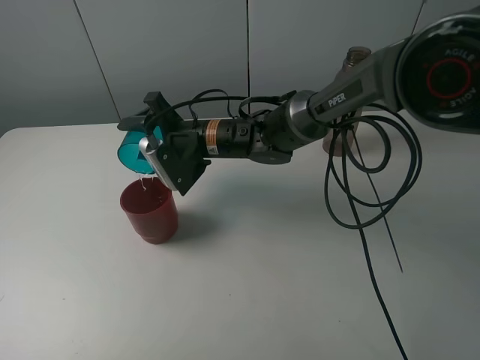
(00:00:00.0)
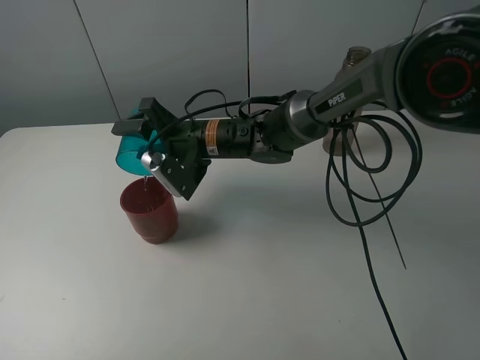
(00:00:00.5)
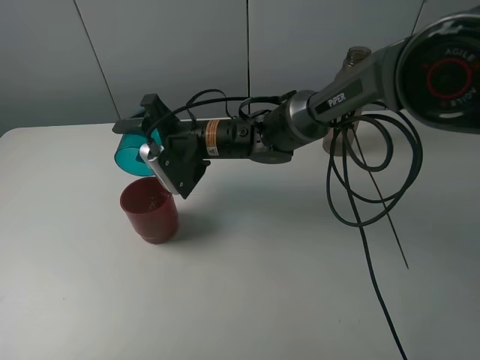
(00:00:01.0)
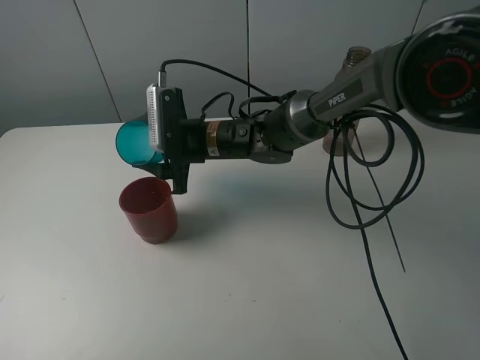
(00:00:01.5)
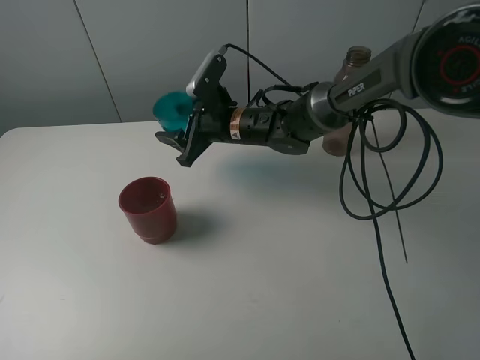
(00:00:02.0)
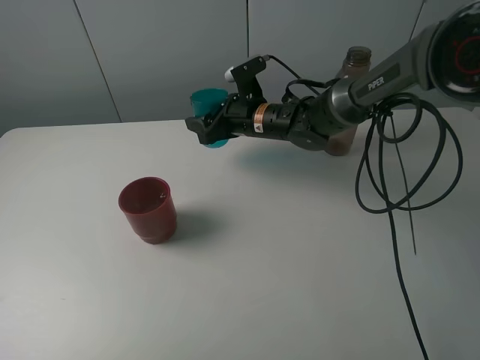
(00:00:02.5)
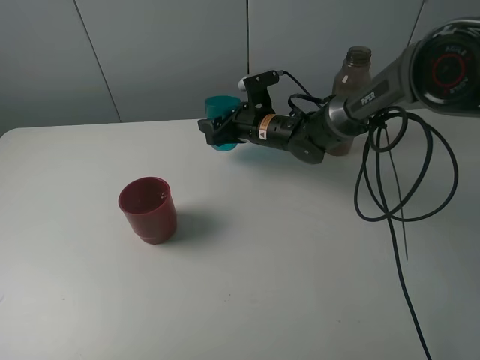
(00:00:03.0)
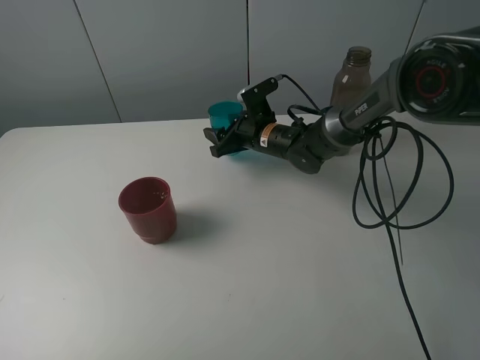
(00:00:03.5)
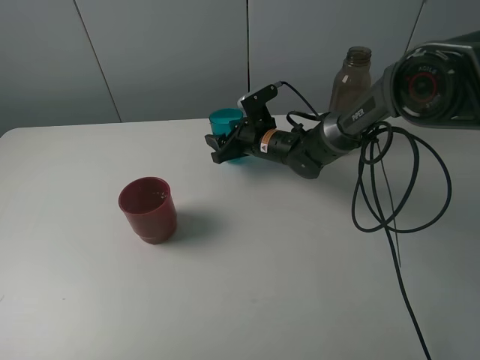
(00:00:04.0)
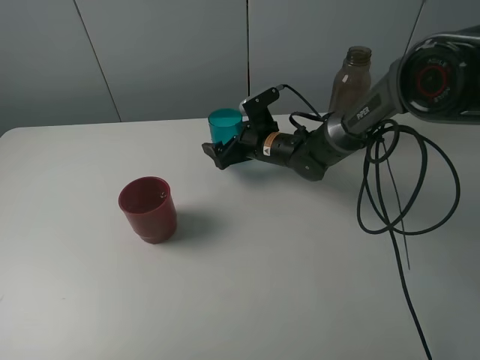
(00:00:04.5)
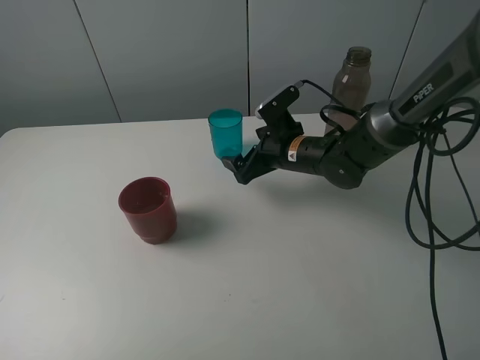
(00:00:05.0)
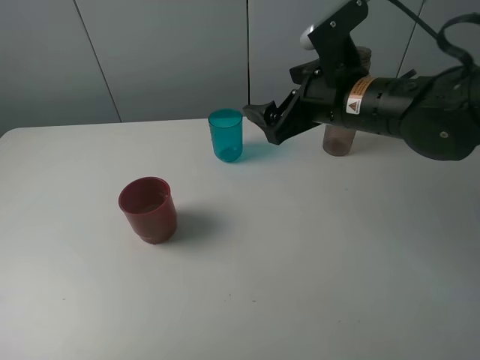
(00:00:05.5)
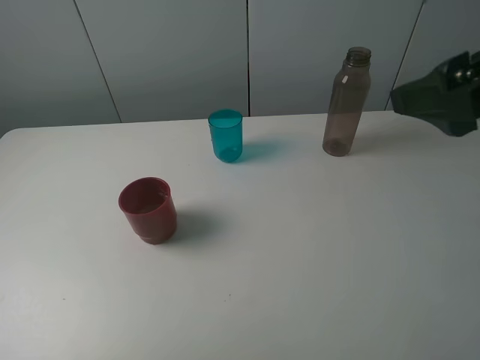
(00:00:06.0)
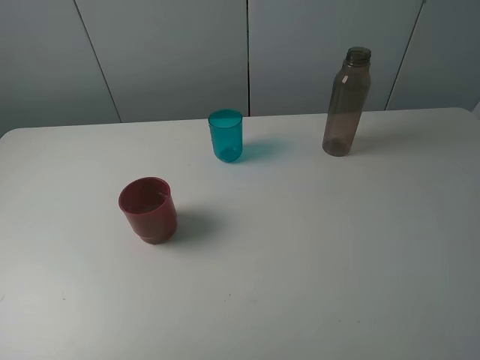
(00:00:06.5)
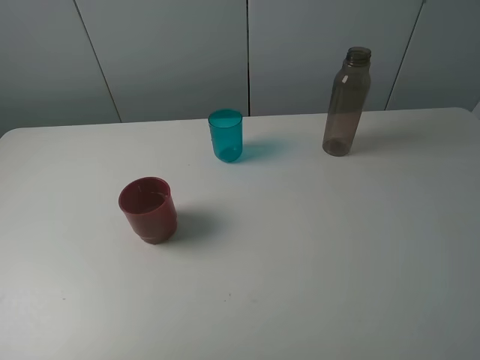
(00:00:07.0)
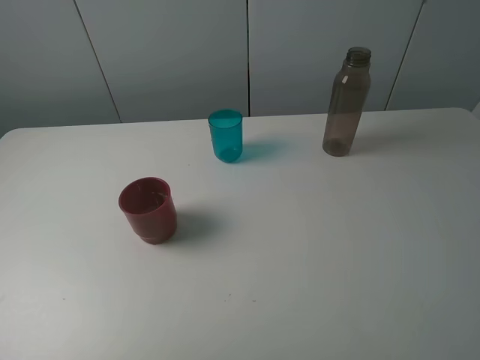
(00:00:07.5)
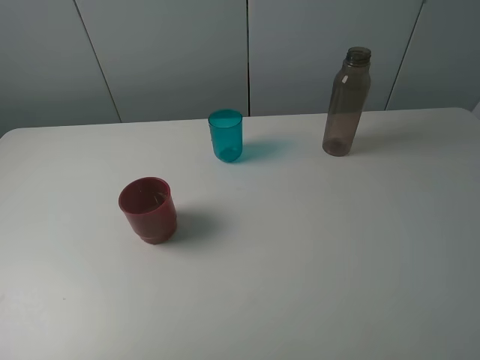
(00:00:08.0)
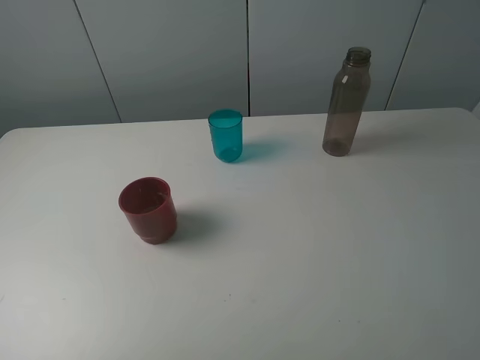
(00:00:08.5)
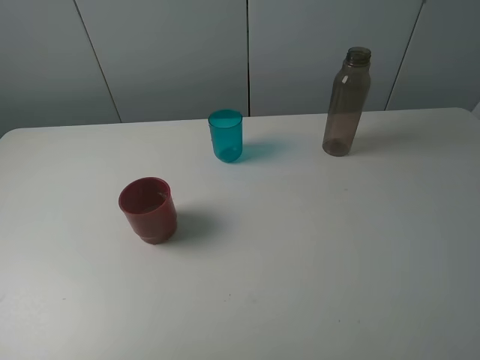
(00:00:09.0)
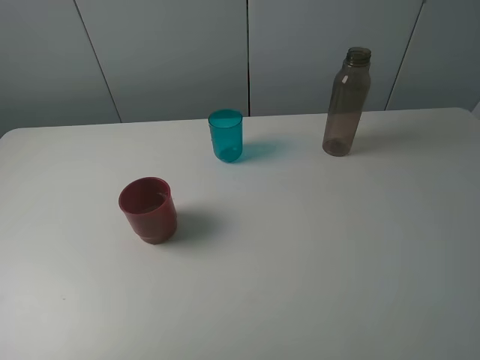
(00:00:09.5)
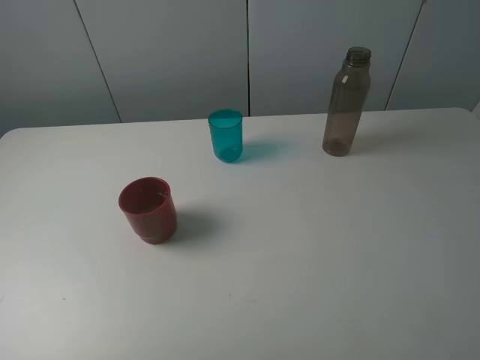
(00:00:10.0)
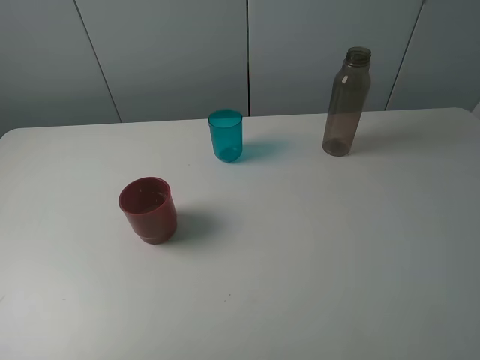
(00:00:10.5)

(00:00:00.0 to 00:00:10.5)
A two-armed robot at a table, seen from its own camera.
Task of the whole recording: pick up the bottle and pour water into the cup, then pick up the cup containing water and pour it into another cup.
Step, 00:00:01.0 - 00:00:04.0: Place the blue cup with the right gripper.
00:00:00.0 - 00:00:02.0: The right gripper moves about 5 cm.
00:00:02.0 - 00:00:04.0: The right gripper travels downward and to the right by approximately 10 cm.
00:00:04.0 - 00:00:06.5: The right gripper moves backward, upward and to the right, about 60 cm, and opens up.
00:00:08.5 - 00:00:10.5: The two grippers keep their place.
